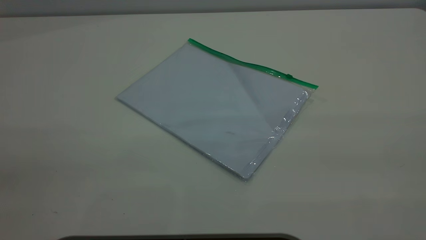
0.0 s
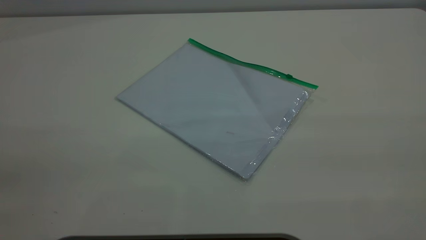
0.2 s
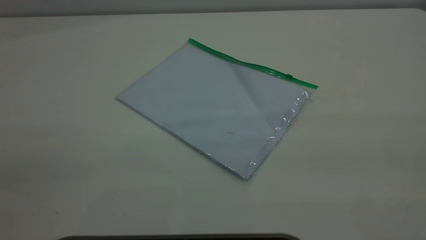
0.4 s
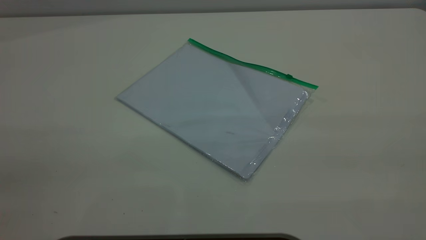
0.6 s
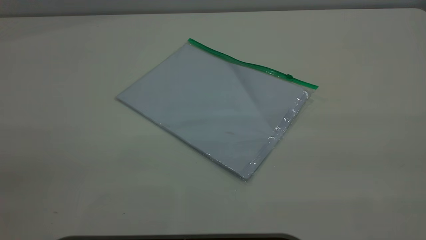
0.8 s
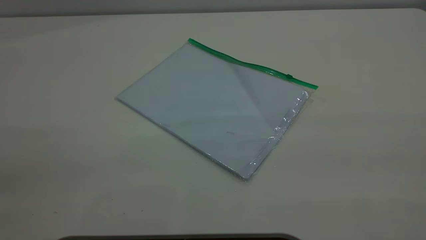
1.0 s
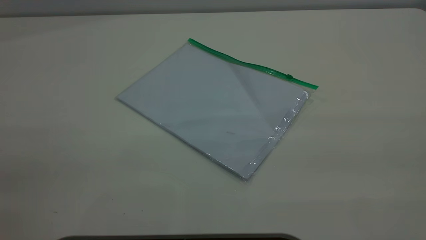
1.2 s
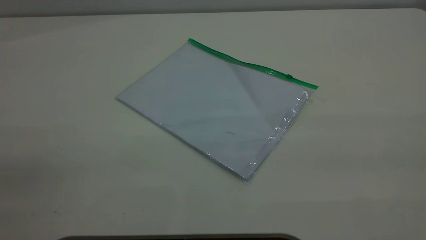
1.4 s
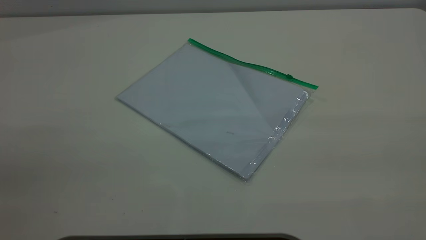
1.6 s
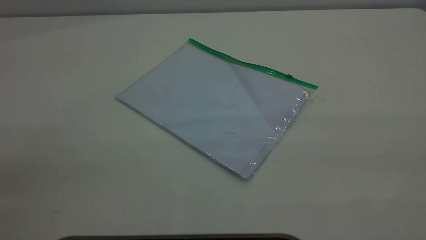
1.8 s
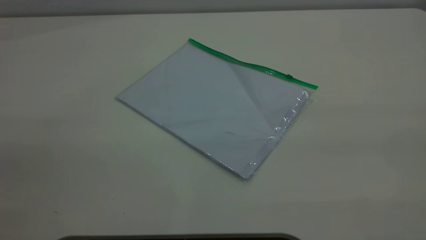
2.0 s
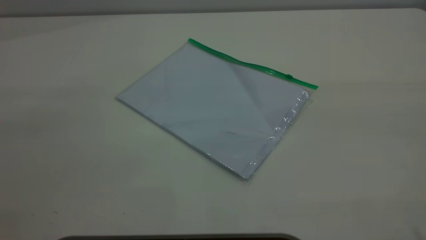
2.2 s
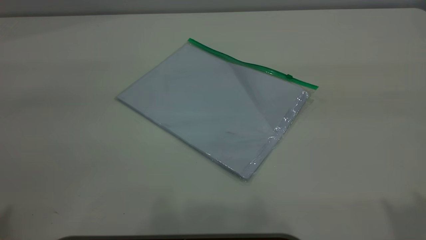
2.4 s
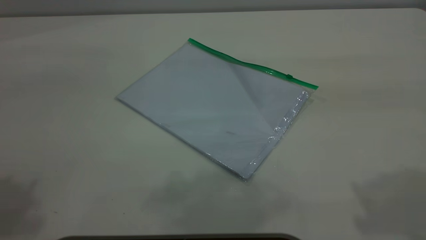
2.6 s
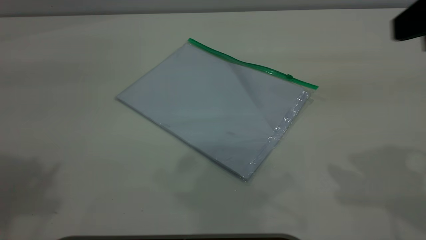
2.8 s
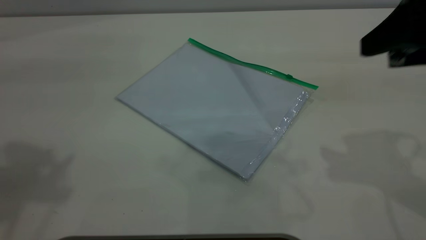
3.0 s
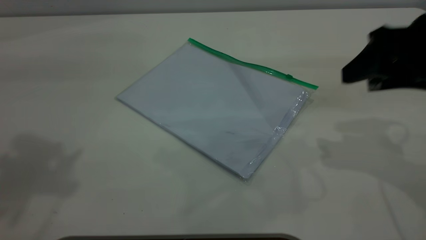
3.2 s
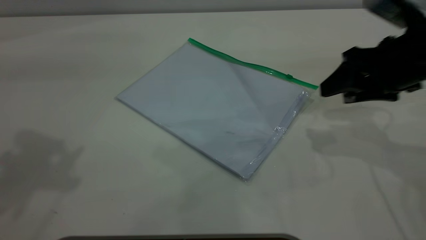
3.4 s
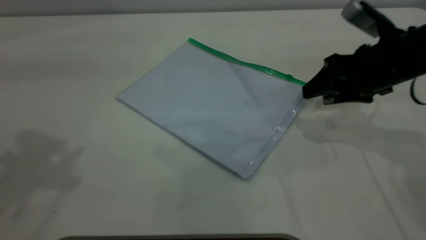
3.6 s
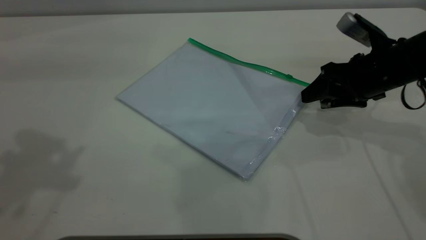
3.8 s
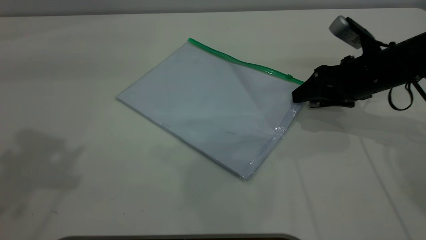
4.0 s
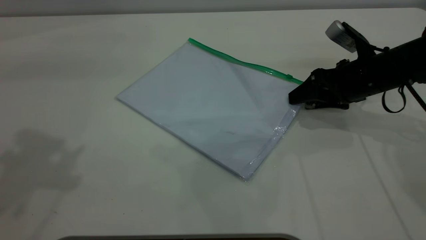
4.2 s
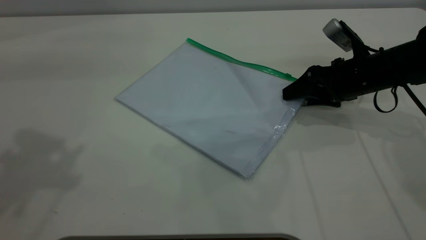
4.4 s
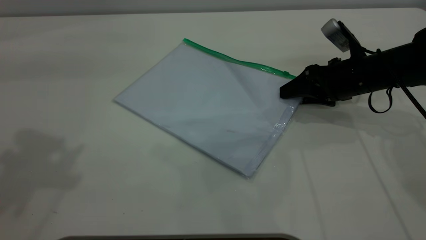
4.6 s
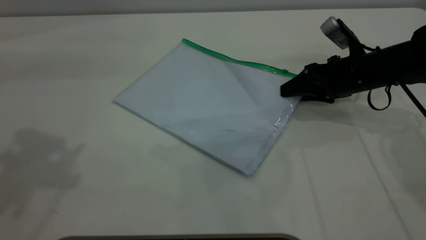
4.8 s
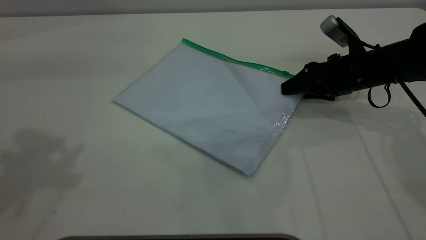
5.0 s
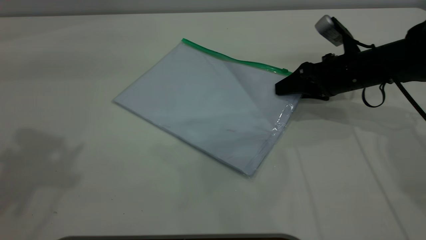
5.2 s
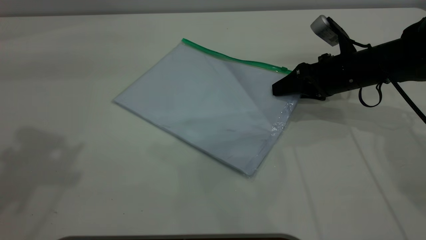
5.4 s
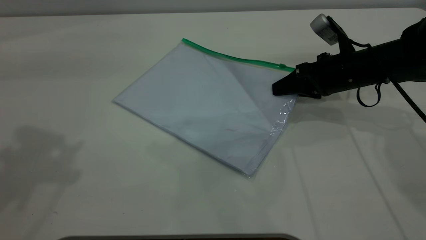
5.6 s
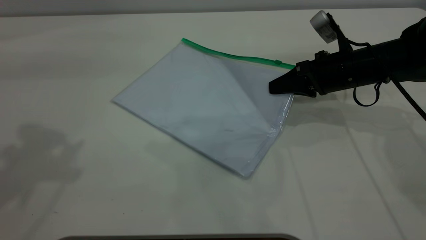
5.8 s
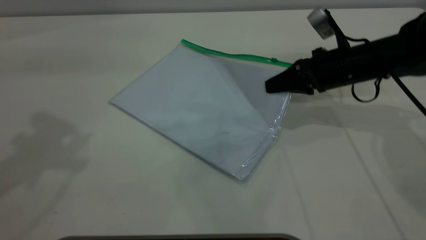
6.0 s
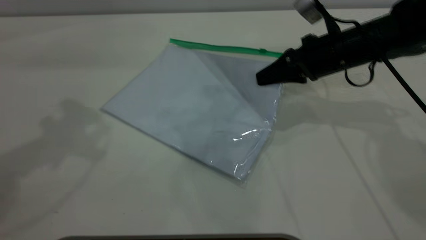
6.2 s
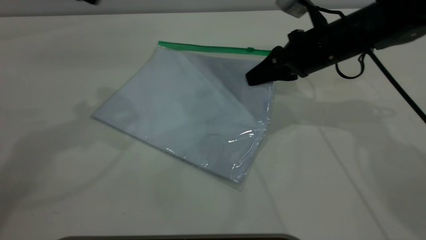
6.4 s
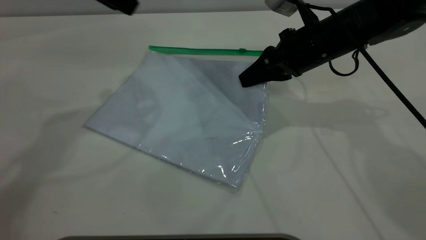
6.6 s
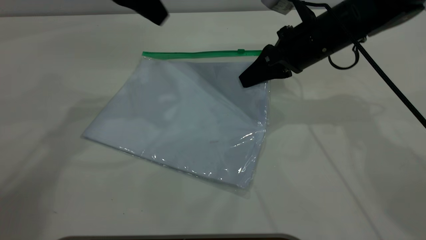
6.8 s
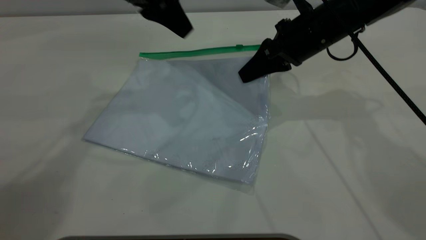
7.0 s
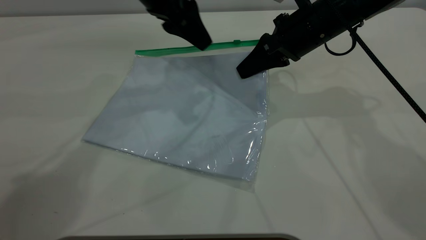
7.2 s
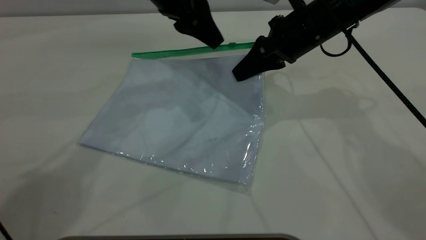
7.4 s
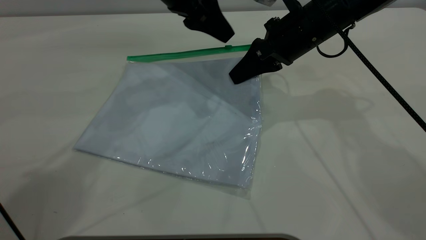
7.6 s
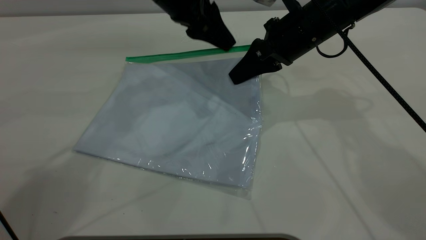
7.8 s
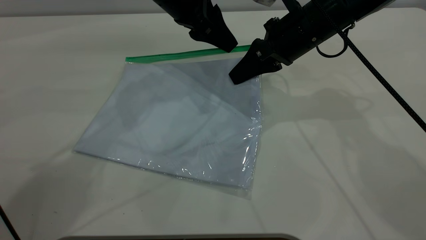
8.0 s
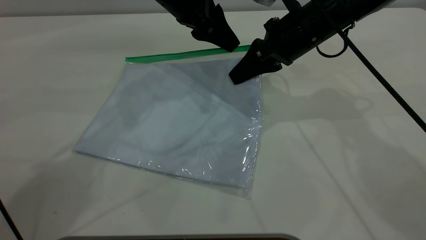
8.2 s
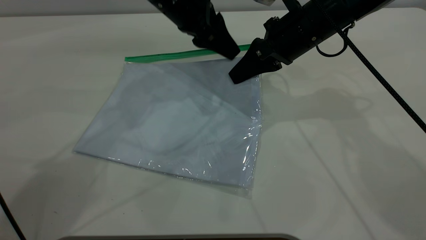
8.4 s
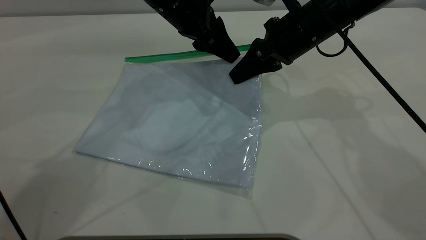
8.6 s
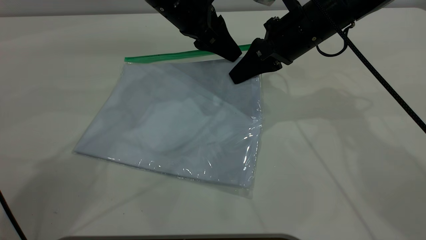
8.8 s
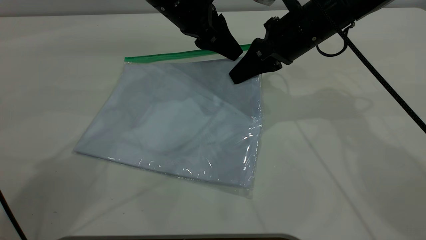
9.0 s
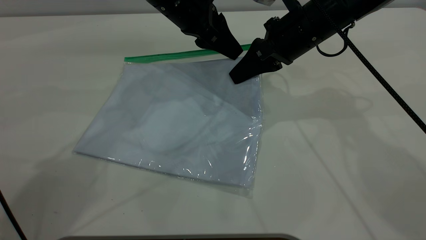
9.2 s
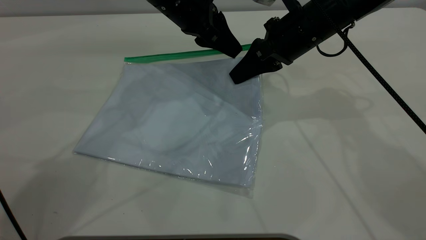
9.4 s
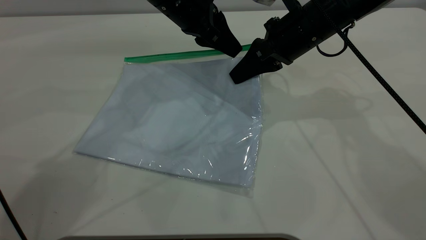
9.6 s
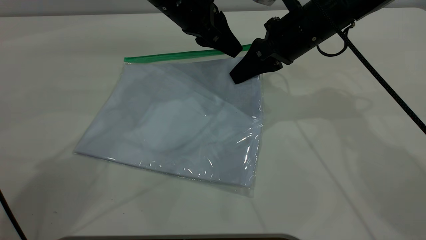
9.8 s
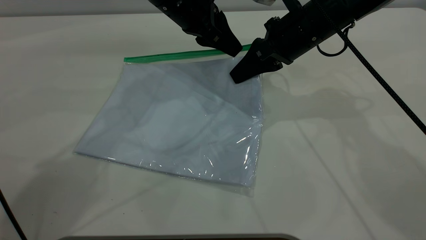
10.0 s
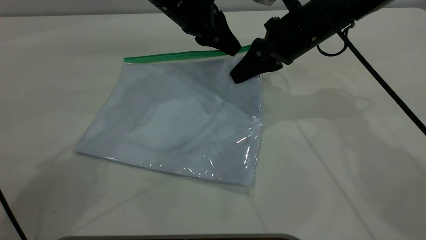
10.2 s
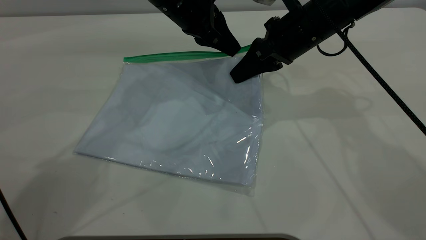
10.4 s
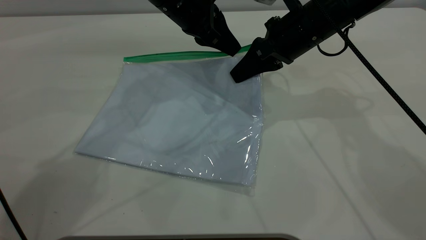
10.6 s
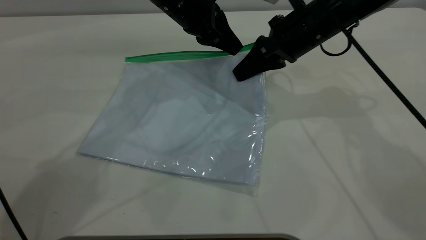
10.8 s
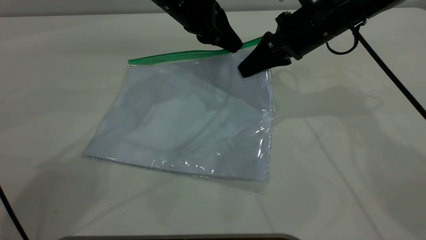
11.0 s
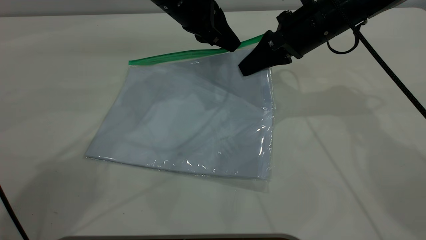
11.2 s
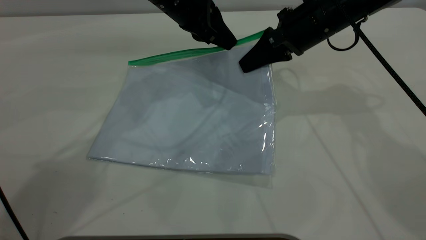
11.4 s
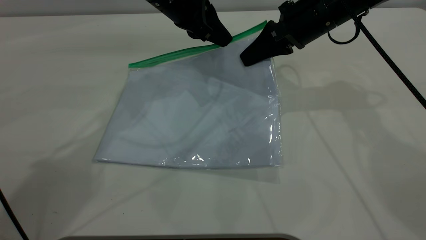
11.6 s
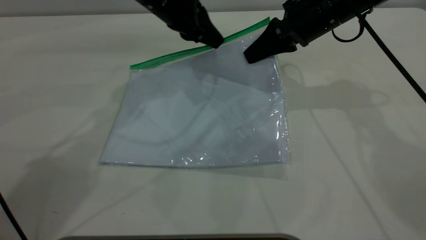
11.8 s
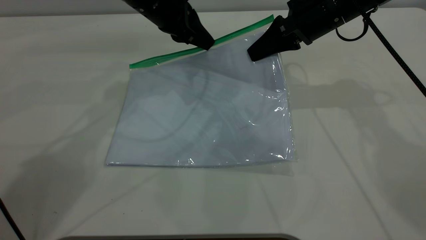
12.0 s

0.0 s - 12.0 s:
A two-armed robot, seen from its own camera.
Step, 0.0 s - 6.6 s: Pick up the transparent plastic bag with the right gripper.
0.0 s - 1.6 s: Both grippers stay put.
1.6 s - 3.0 s: The right gripper goes roughly 30 cm forward and downward.
3.0 s - 4.4 s: The right gripper travels downward and forward by about 25 cm.
4.4 s - 6.0 s: The right gripper closes its fingers.
6.0 s - 7.6 s: The right gripper heads to the left and upward, covering roughly 10 cm. The left gripper shifts about 30 cm to the right, forward and downward.
7.6 s - 9.0 s: The grippers move only a little.
9.0 s - 10.4 s: The left gripper closes up.
10.4 s - 12.0 s: The left gripper changes place by approximately 5 cm.

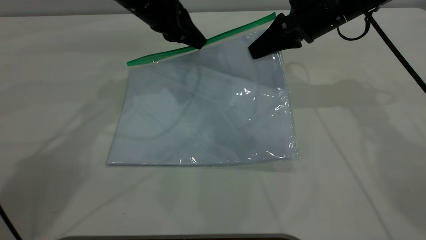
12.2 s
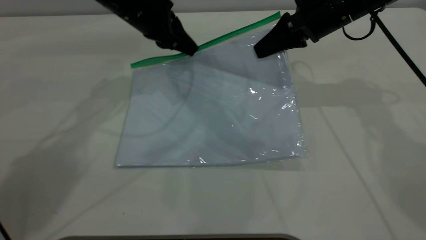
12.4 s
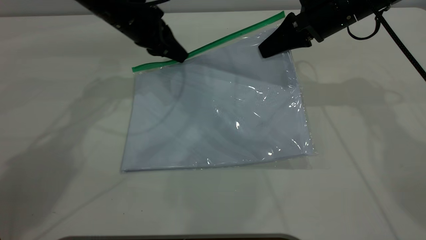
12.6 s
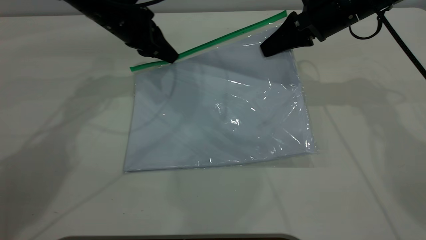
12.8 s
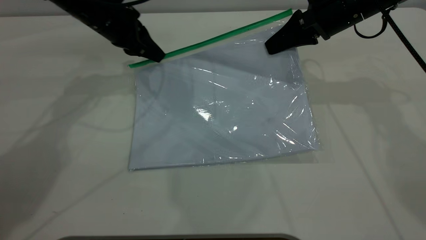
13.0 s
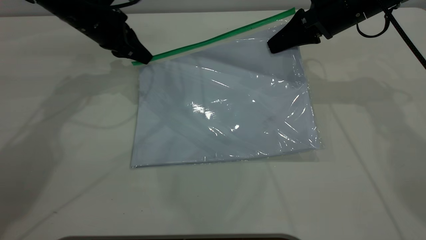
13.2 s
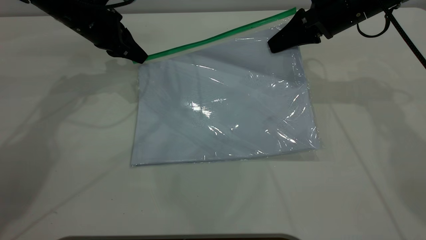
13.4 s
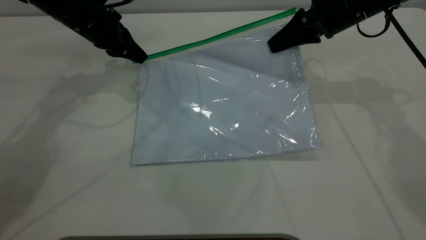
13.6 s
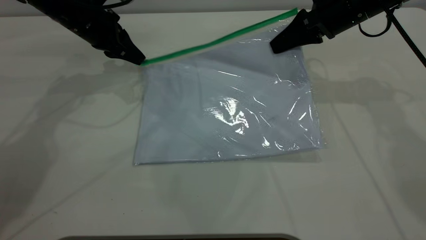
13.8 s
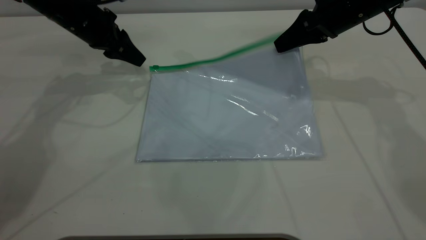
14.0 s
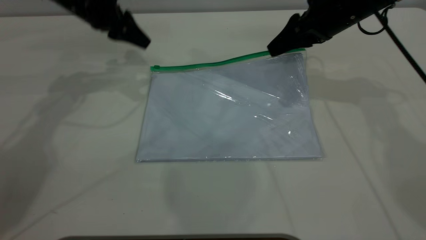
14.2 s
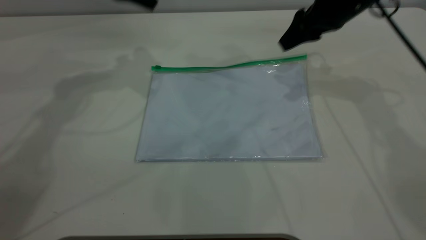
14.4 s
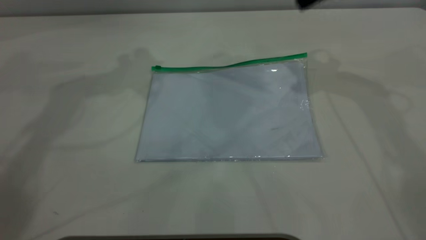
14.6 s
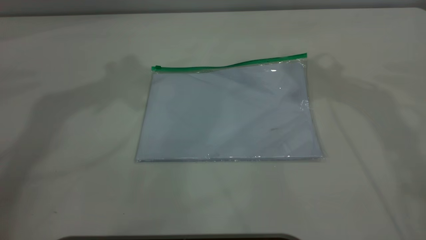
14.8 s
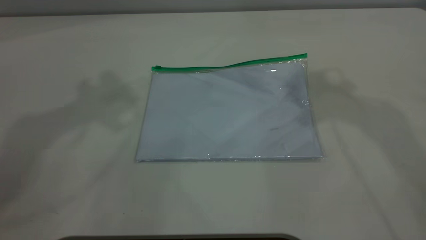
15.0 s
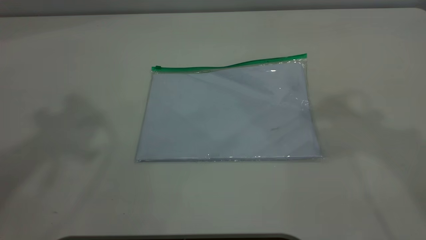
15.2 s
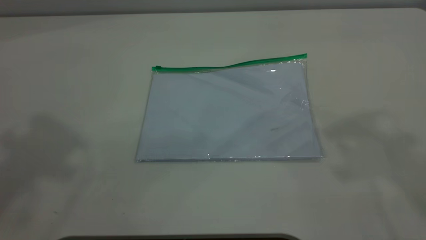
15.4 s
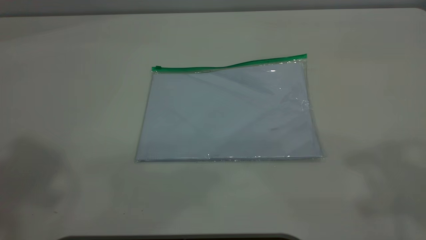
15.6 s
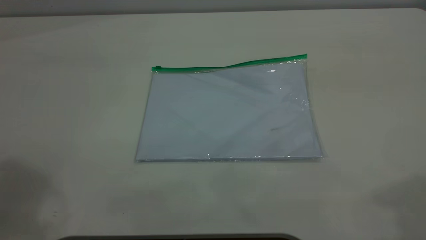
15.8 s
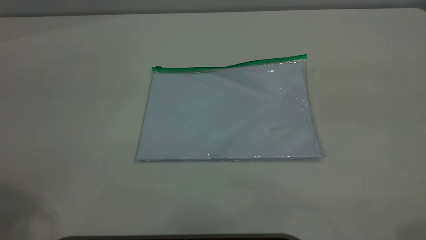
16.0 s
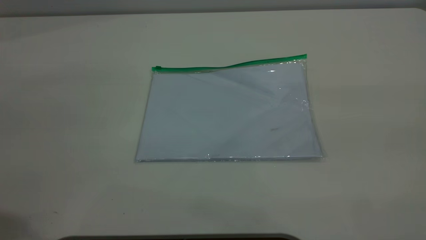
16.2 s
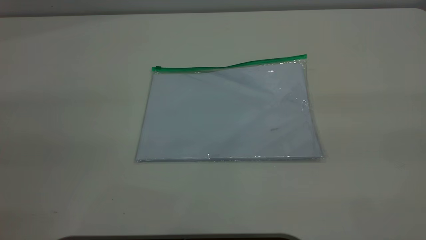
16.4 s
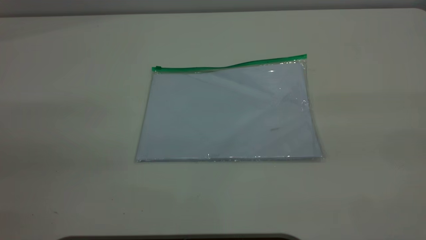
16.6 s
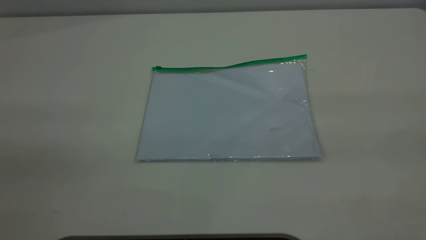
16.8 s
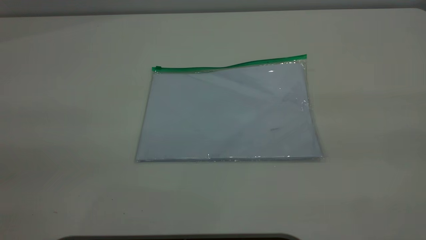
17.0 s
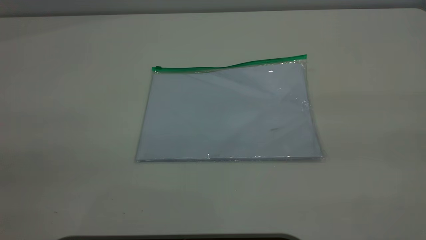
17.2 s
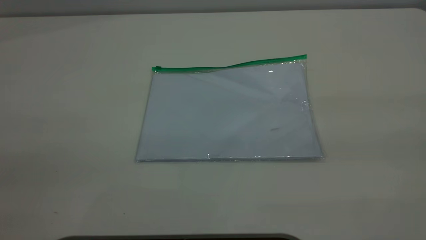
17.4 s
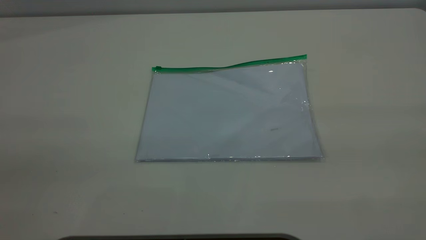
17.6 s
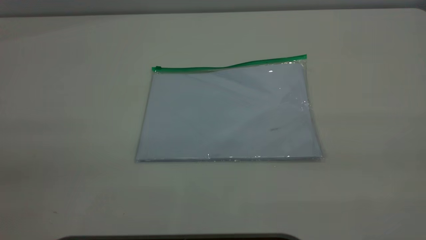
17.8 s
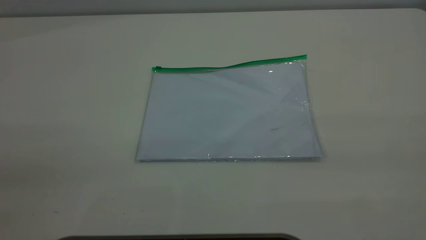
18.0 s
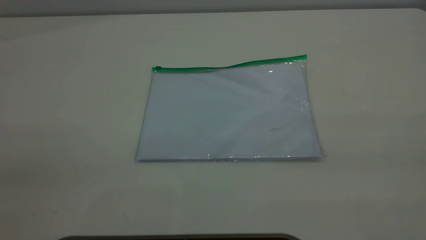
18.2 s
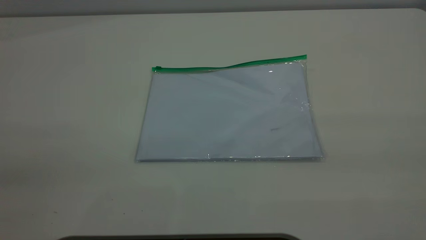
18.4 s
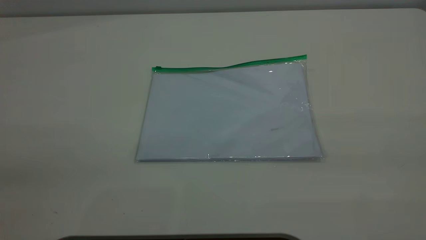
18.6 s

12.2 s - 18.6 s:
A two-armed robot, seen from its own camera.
Step, 14.0 s - 14.8 s: Place the transparent plastic bag.
12.2 s - 13.8 s: The left gripper travels to the left by some 10 cm.
13.8 s - 15.4 s: Both grippers travel together upward and backward, some 40 cm. The right gripper opens its fingers. Meanwhile the left gripper opens.
